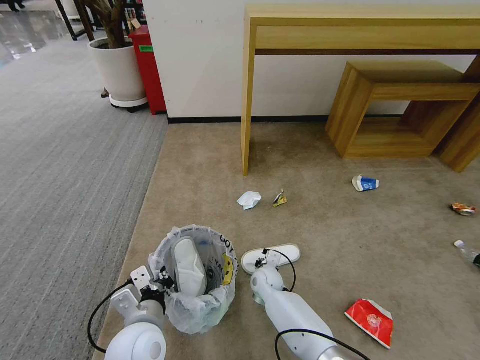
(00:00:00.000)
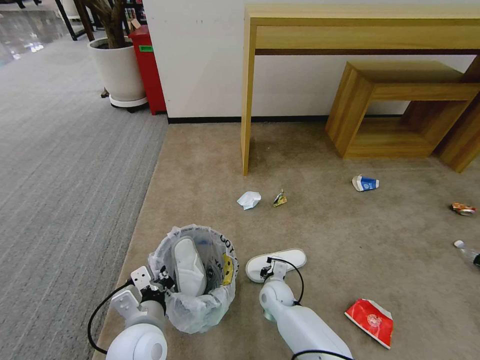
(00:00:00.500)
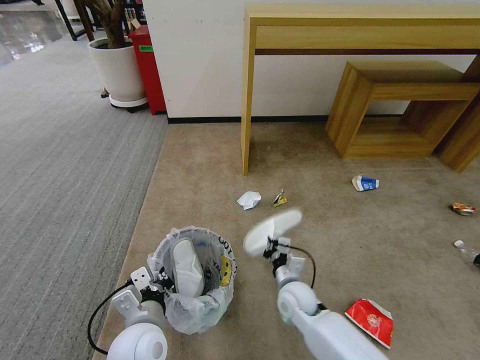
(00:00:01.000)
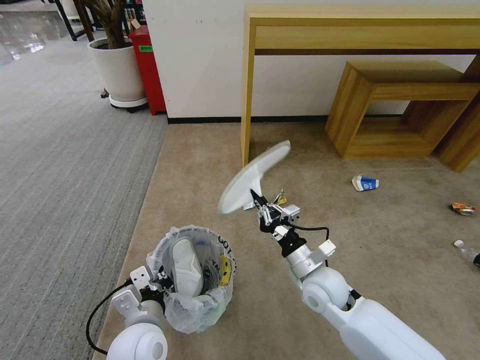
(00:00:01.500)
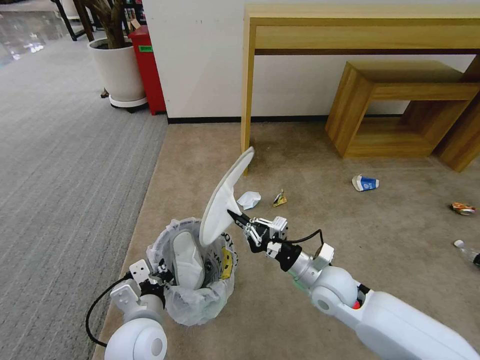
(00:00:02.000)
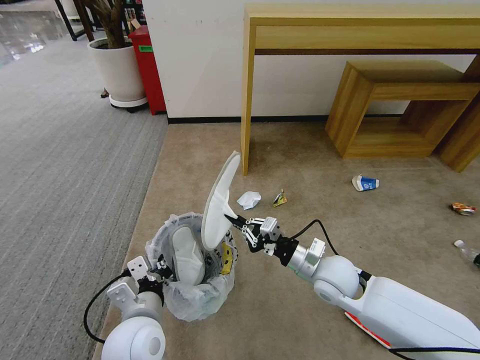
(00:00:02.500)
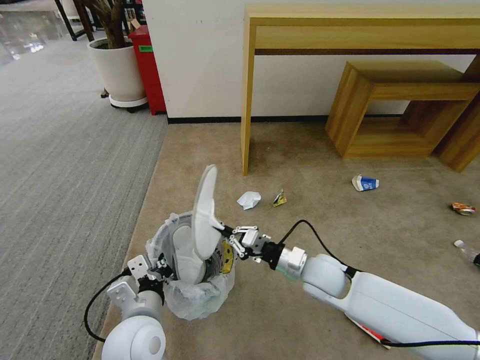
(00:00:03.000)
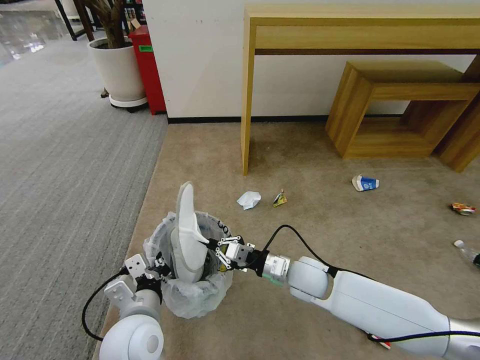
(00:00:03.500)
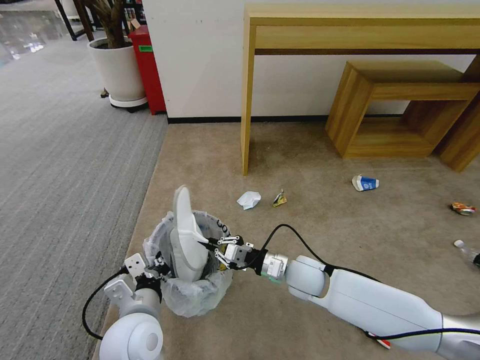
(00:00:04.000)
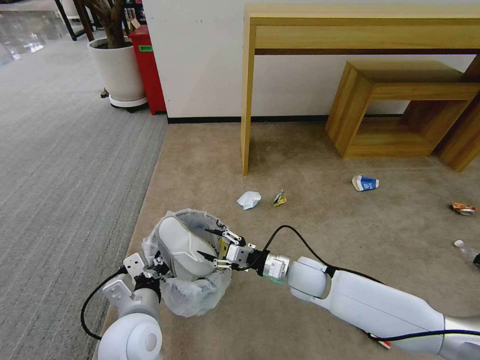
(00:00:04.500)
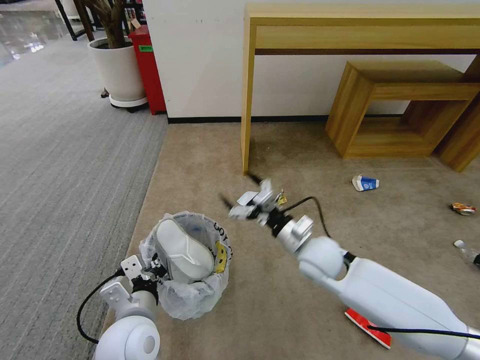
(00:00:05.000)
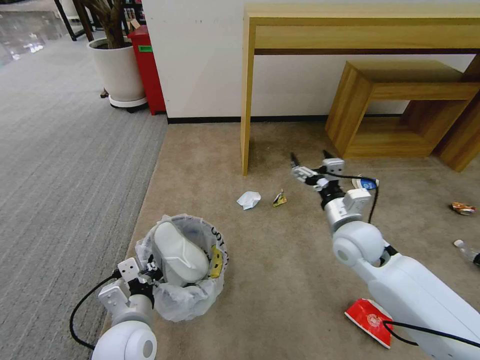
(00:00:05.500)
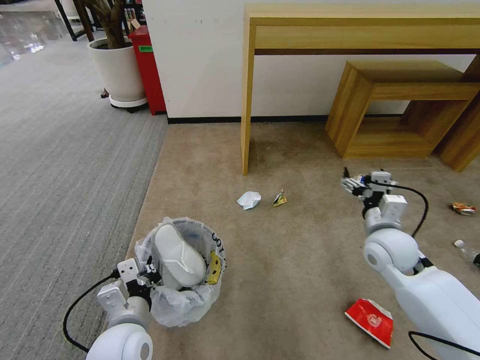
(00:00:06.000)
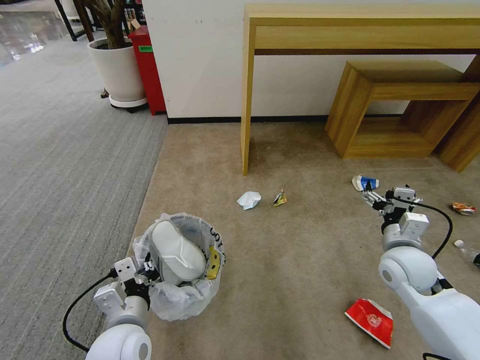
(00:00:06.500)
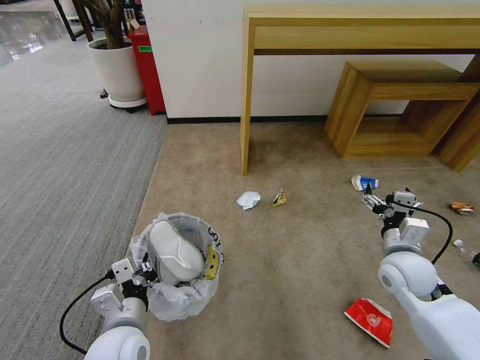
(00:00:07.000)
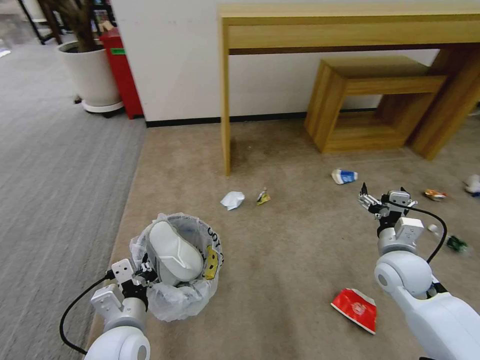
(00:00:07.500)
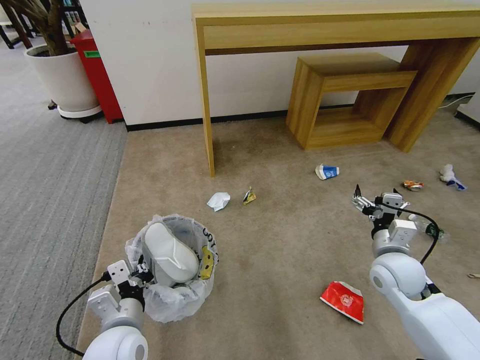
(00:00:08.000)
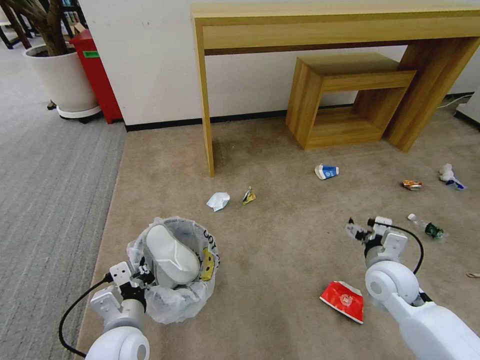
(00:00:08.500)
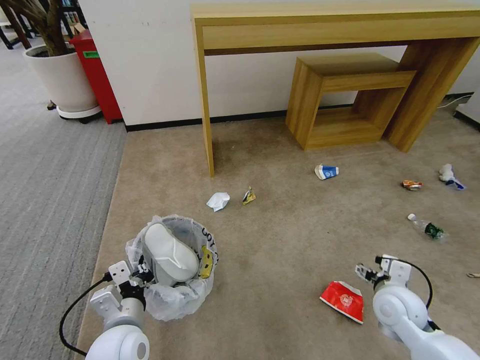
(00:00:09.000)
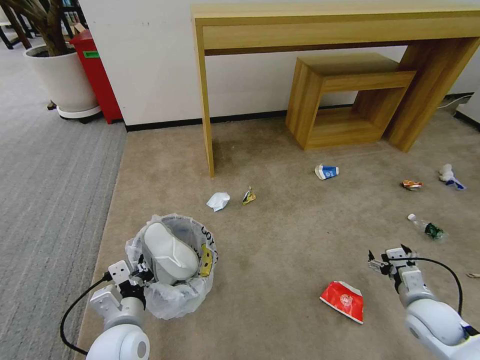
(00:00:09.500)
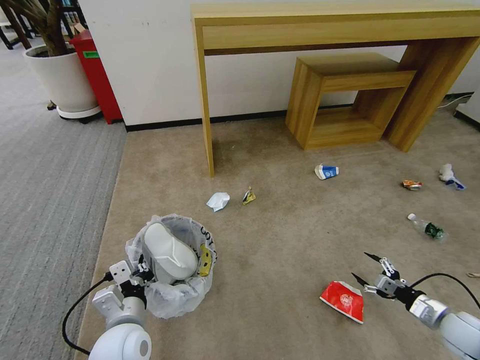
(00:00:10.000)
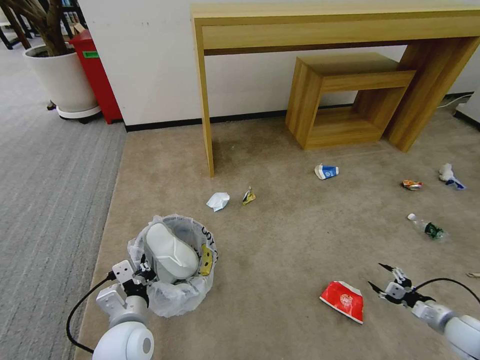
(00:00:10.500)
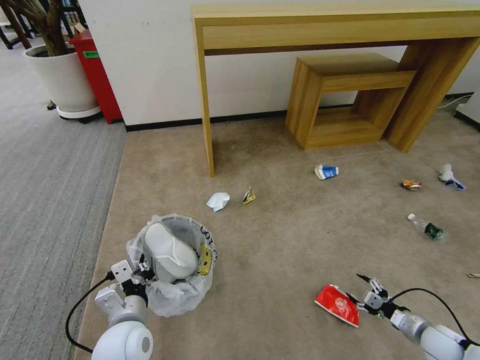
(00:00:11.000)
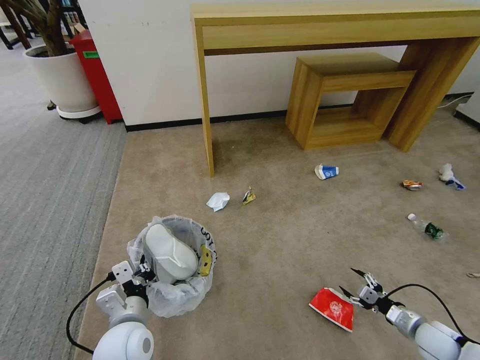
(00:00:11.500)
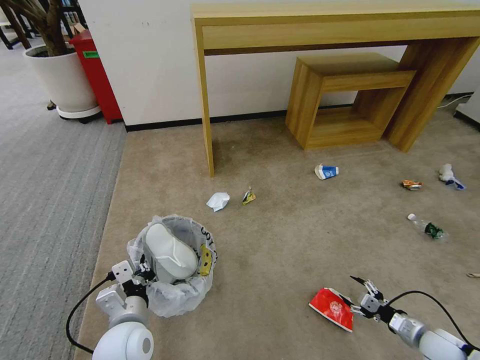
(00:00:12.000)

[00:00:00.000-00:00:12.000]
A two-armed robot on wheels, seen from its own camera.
Task of the whole recording: Pick up the trash bin and place the garbage on the floor into it.
00:00:00.000 to 00:00:02.000: The right gripper shifts roughly 25 cm upward, to the right and backward.
00:00:02.000 to 00:00:04.000: The right gripper moves roughly 5 cm.
00:00:04.000 to 00:00:06.000: The right gripper is displaced to the right and upward by about 20 cm, and opens its fingers.
00:00:06.000 to 00:00:08.000: The right gripper shifts by about 5 cm.
00:00:08.000 to 00:00:10.000: The right gripper goes about 25 cm to the right, downward and backward.
00:00:10.000 to 00:00:12.000: The right gripper changes place by roughly 5 cm.

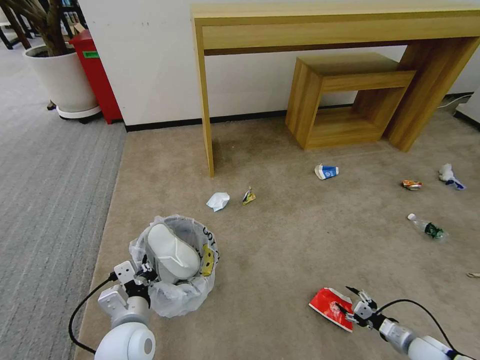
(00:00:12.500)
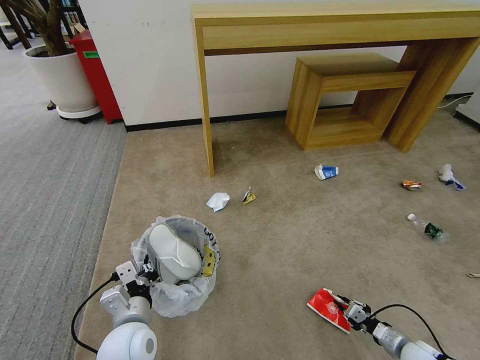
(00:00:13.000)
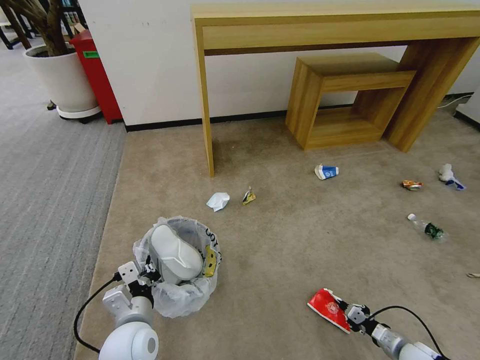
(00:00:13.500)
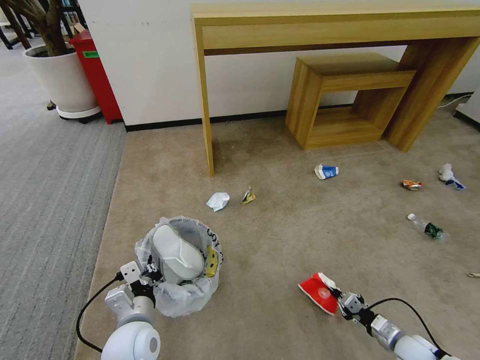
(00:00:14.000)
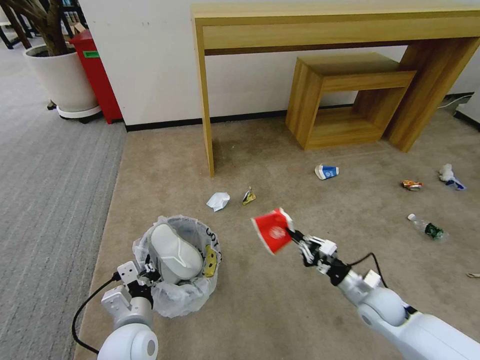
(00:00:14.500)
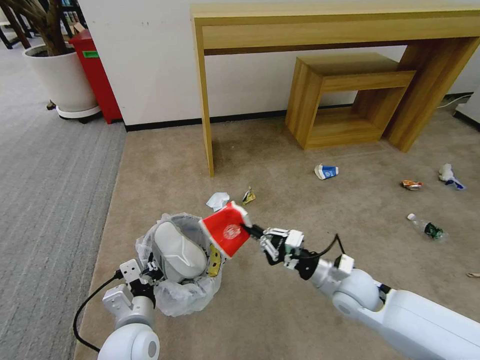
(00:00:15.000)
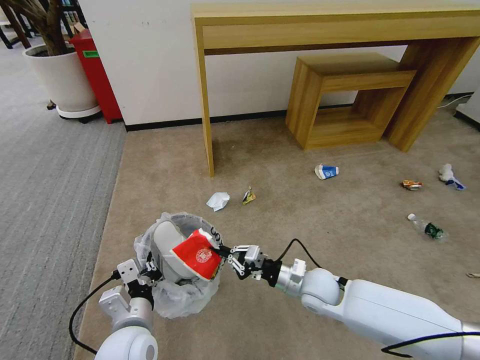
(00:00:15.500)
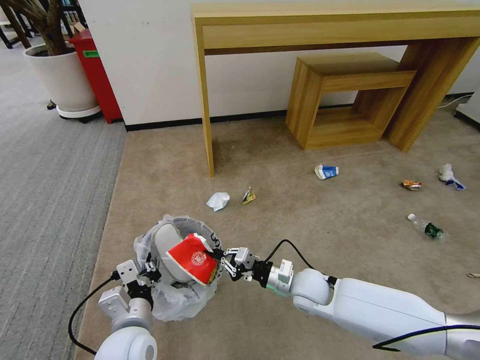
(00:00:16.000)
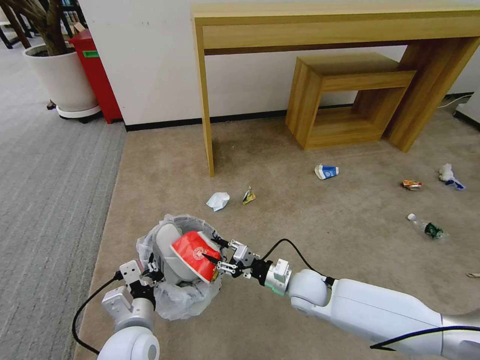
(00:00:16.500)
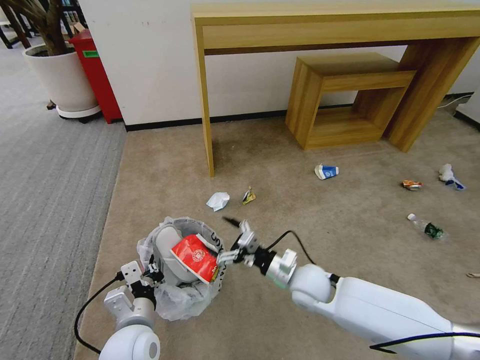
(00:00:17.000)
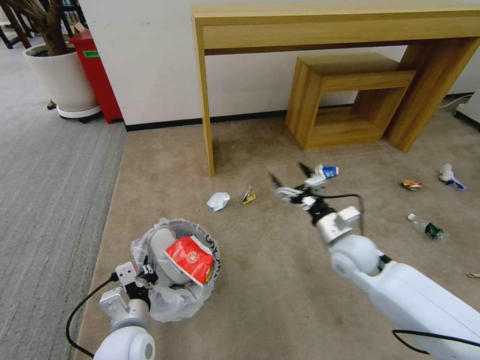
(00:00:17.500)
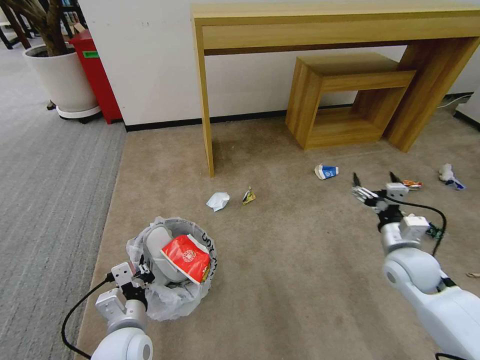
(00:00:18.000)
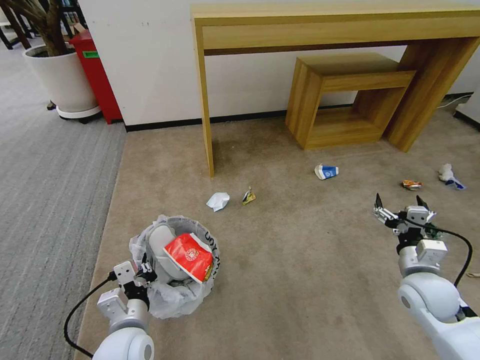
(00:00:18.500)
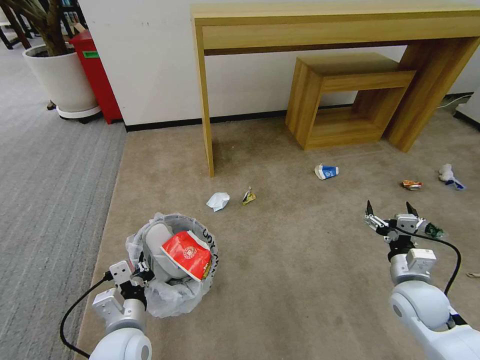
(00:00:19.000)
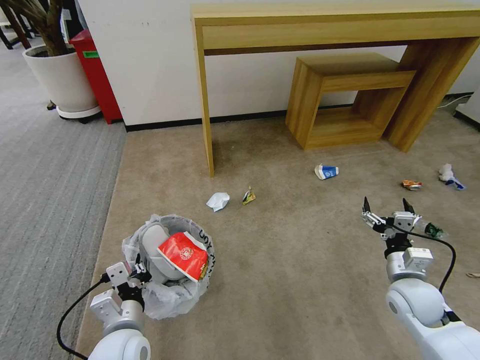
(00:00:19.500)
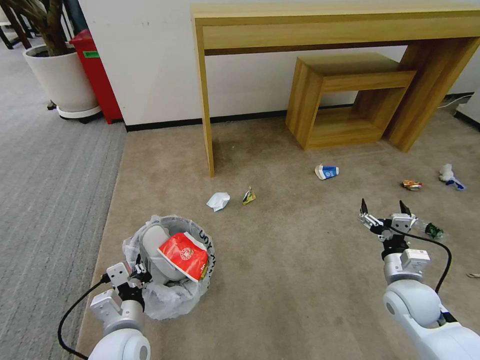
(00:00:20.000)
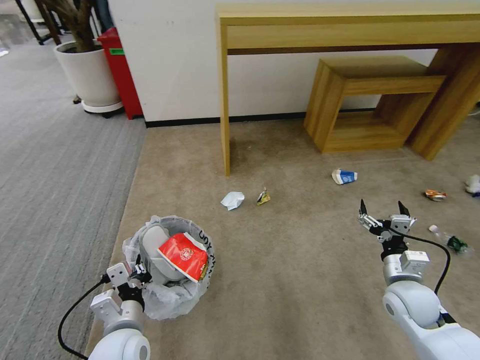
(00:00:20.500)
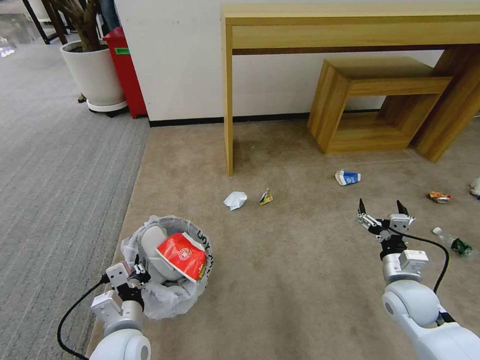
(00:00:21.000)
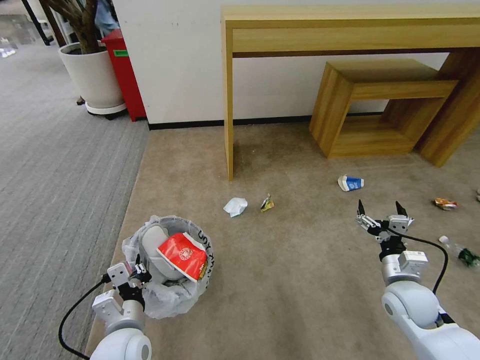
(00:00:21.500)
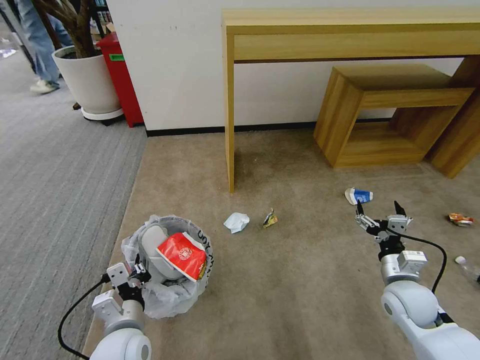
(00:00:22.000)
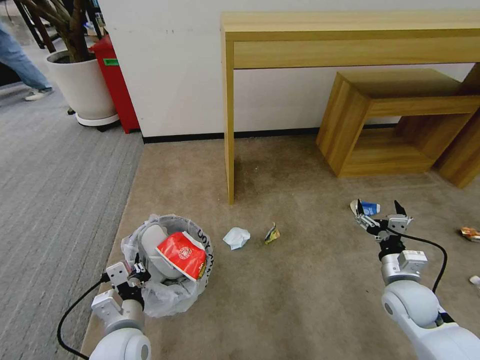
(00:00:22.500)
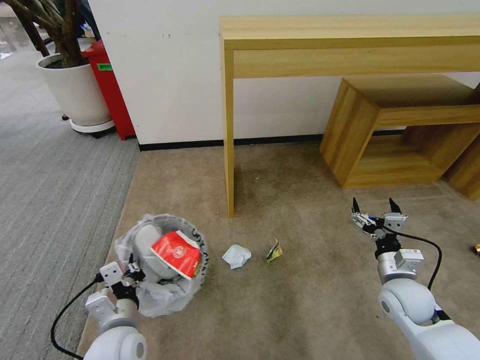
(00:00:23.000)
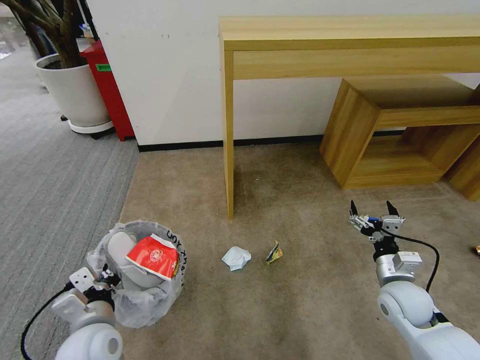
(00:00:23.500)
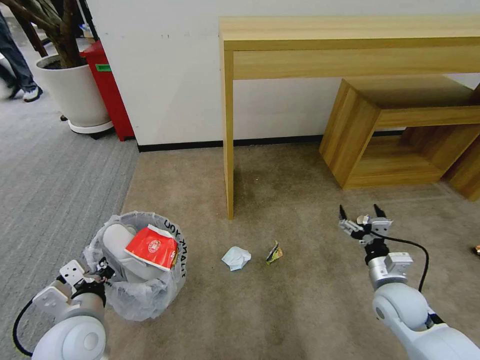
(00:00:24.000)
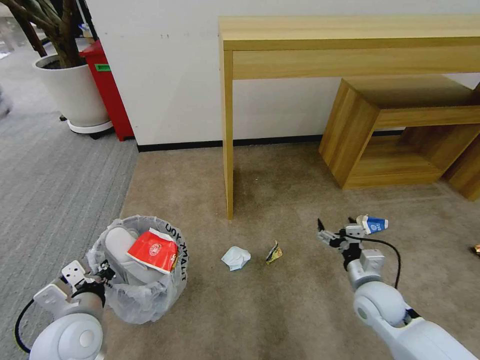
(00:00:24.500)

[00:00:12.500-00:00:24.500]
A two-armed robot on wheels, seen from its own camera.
Task of the whole recording: Pick up the trash bin and place the garbage on the floor into it.
00:00:12.500 to 00:00:14.500: The right gripper is displaced to the left, upward and forward by roughly 20 cm, and closes its fingers.
00:00:14.500 to 00:00:16.500: The right gripper moves to the left, approximately 20 cm, and opens.
00:00:16.500 to 00:00:18.500: The right gripper goes about 25 cm to the right, and opens up.
00:00:22.500 to 00:00:24.500: The left gripper shifts approximately 10 cm to the left and upward. Meanwhile the right gripper is displaced to the left by some 5 cm.

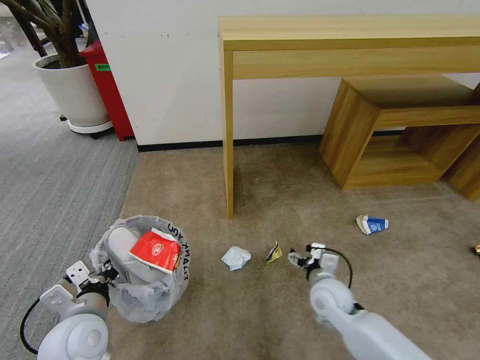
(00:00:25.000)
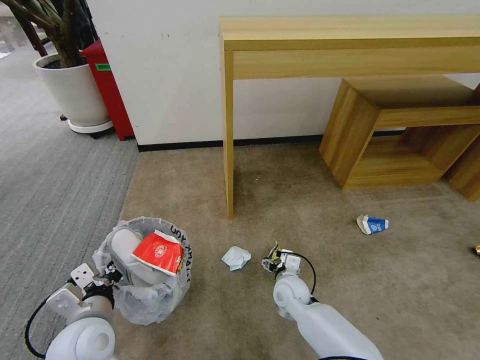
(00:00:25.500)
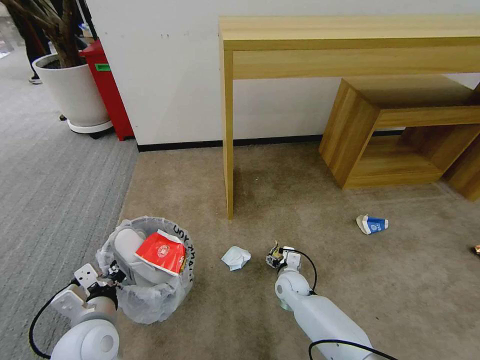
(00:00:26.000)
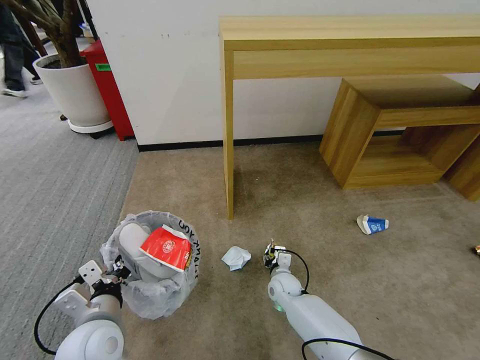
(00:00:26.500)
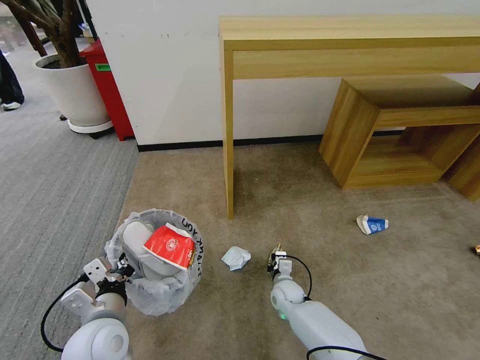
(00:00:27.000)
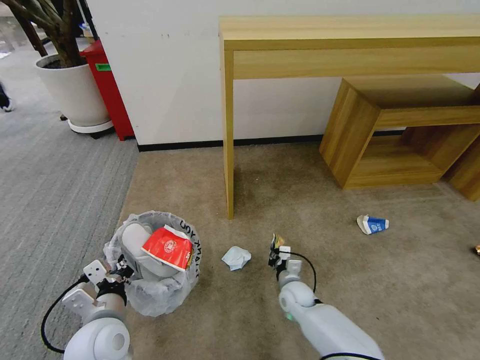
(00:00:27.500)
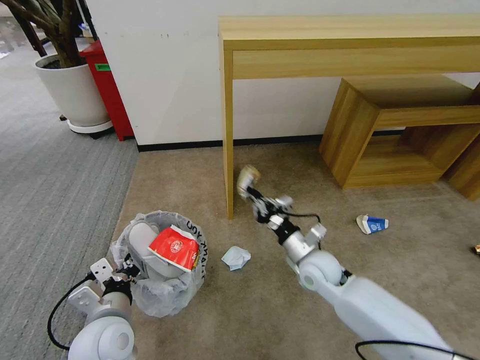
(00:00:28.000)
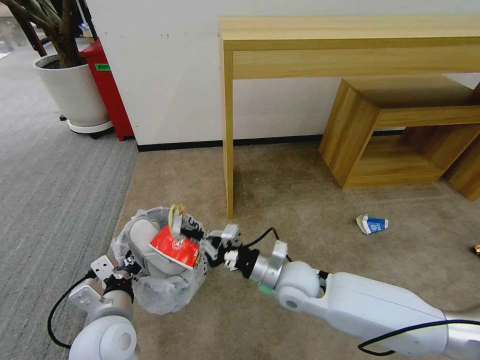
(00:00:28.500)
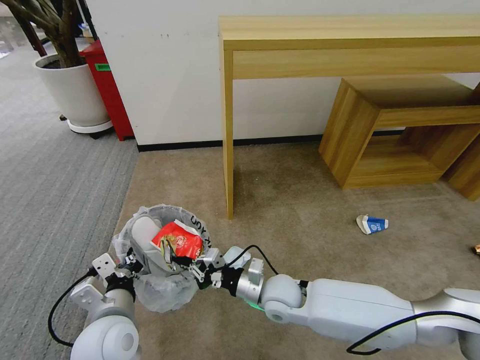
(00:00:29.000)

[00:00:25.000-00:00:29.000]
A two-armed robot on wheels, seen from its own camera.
Task of the whole recording: Pick up the trash bin and place the garbage on the floor into it.
00:00:25.000 to 00:00:27.000: The right gripper moves downward, to the left and forward, about 15 cm, and closes up.
00:00:27.000 to 00:00:29.000: The right gripper travels upward by roughly 15 cm.
